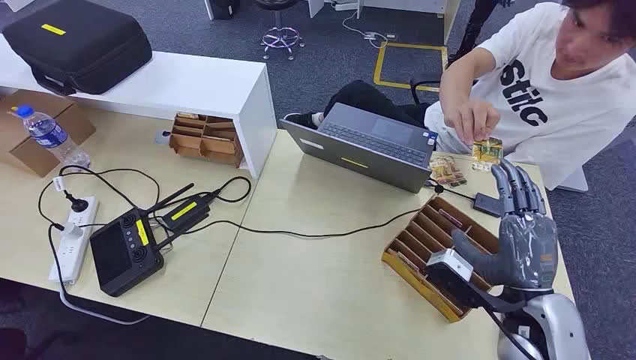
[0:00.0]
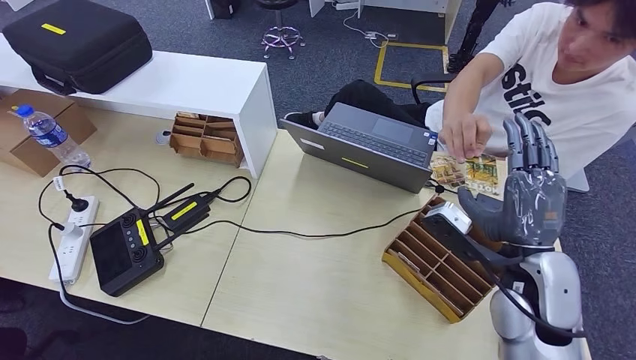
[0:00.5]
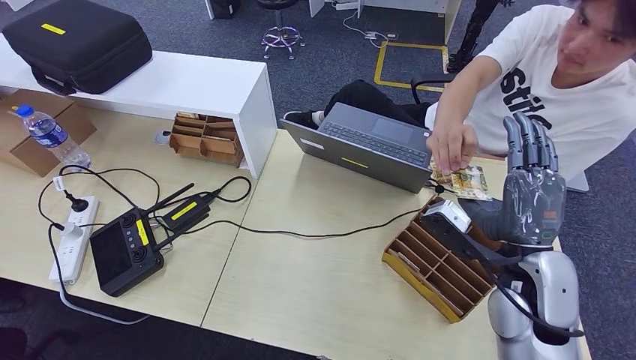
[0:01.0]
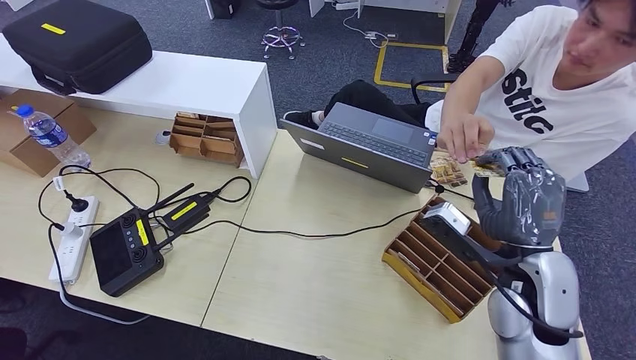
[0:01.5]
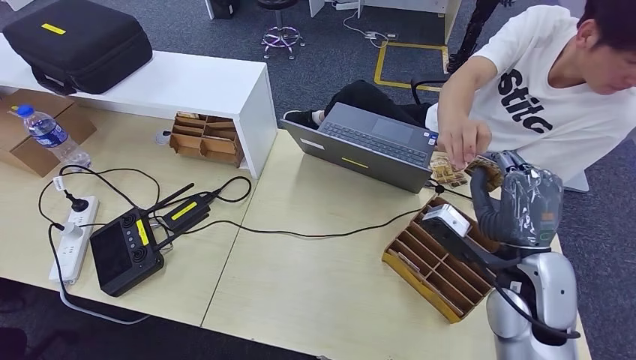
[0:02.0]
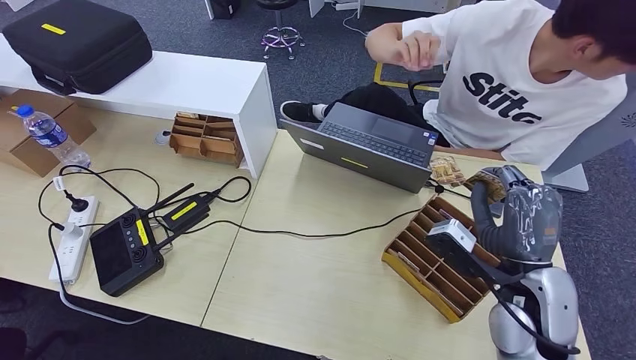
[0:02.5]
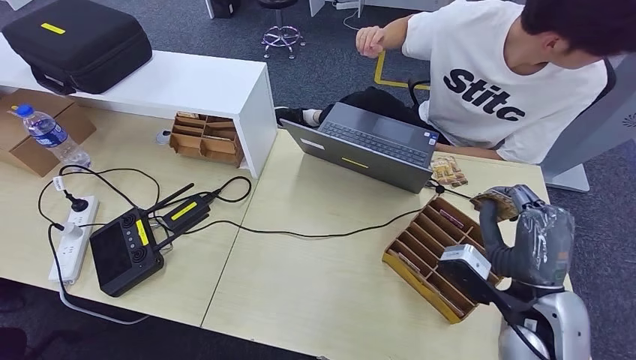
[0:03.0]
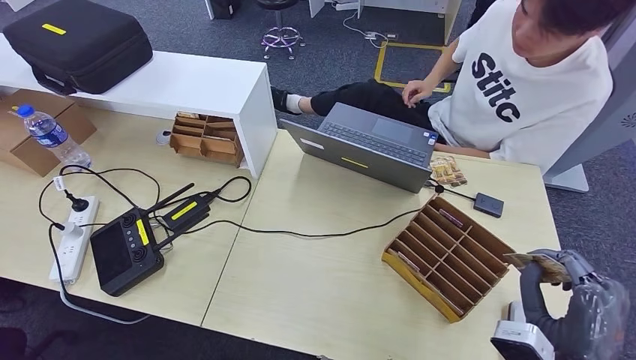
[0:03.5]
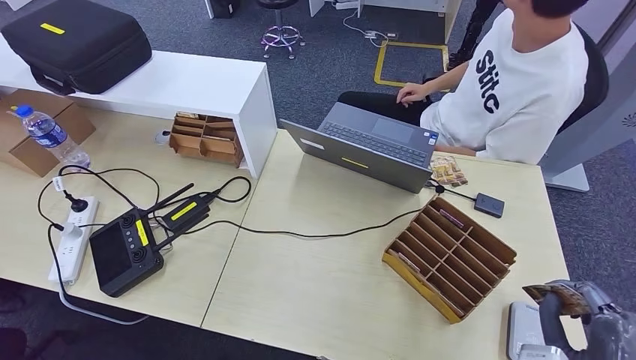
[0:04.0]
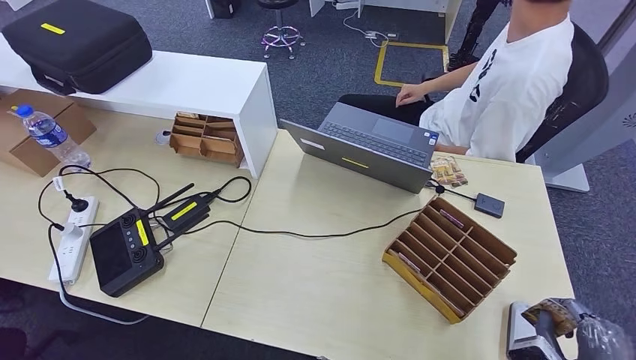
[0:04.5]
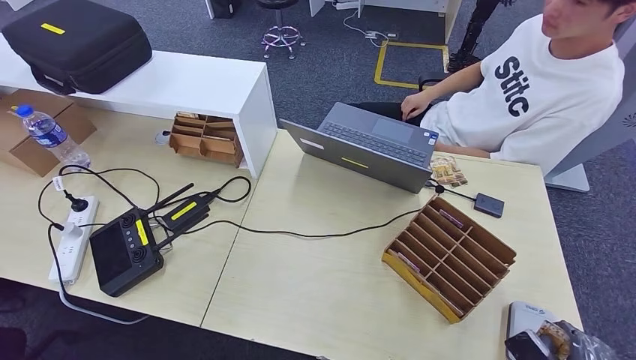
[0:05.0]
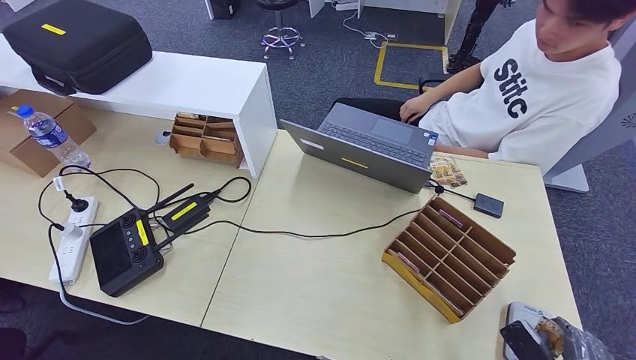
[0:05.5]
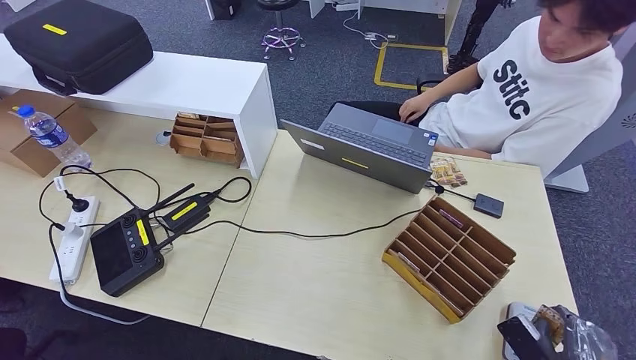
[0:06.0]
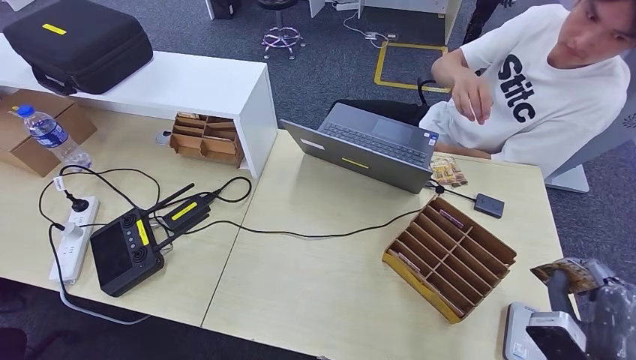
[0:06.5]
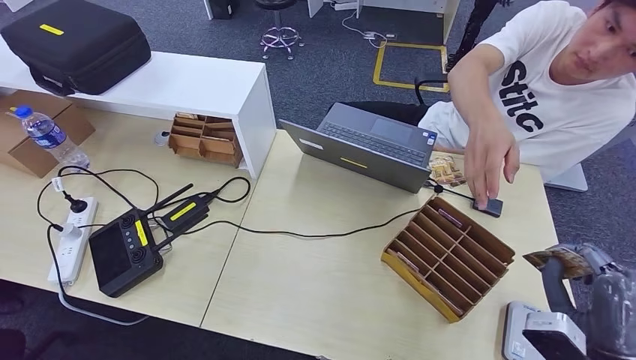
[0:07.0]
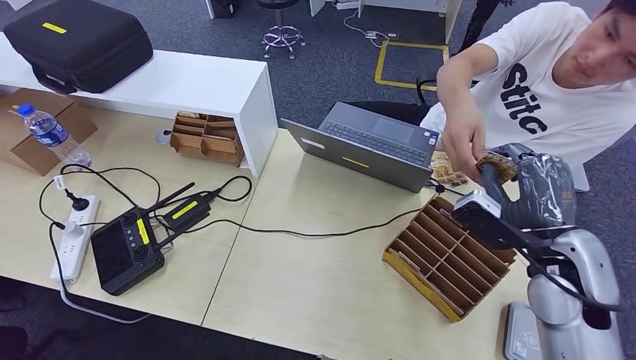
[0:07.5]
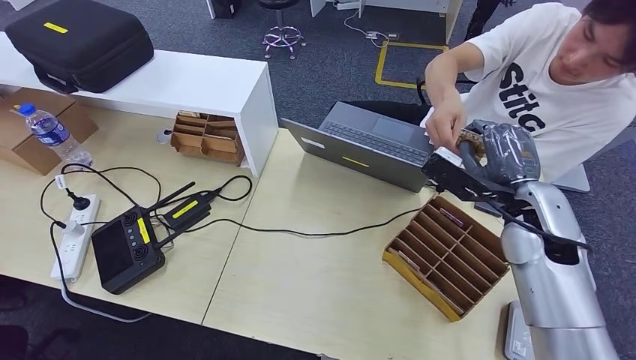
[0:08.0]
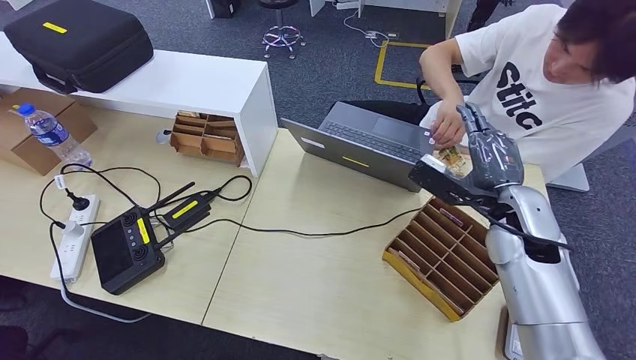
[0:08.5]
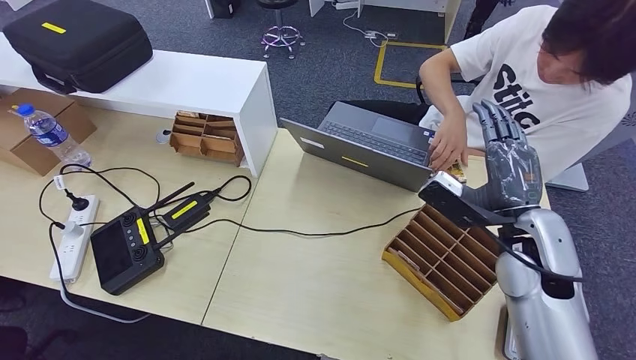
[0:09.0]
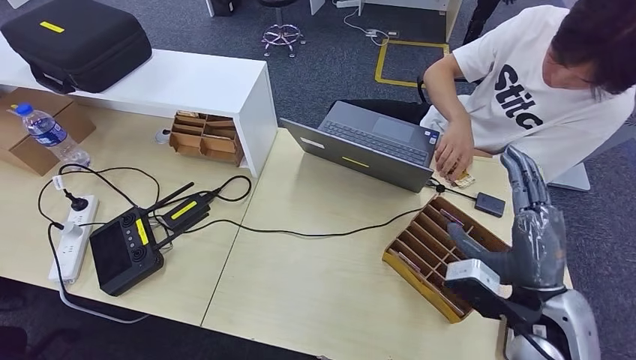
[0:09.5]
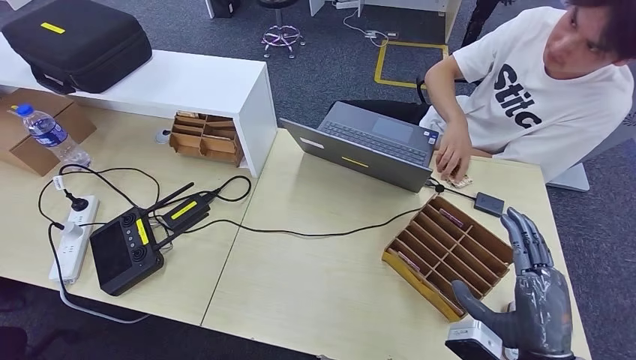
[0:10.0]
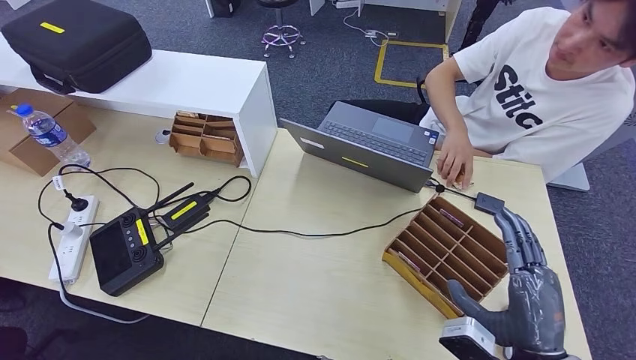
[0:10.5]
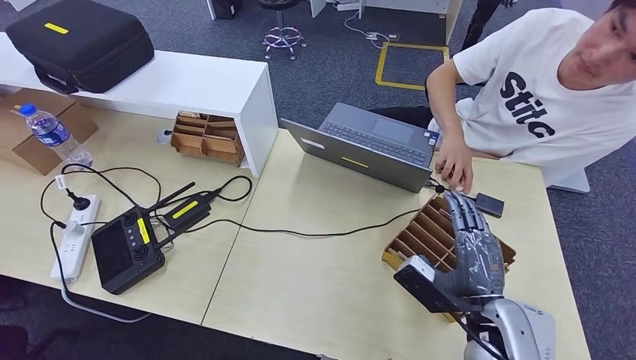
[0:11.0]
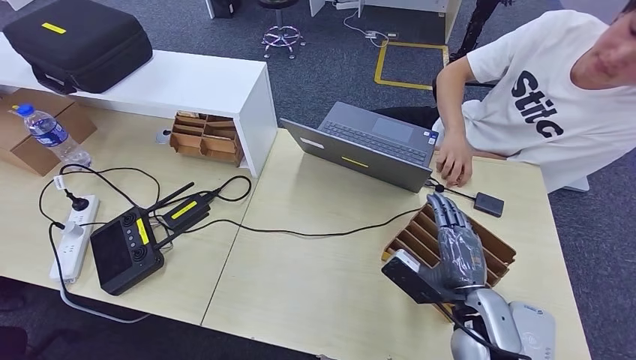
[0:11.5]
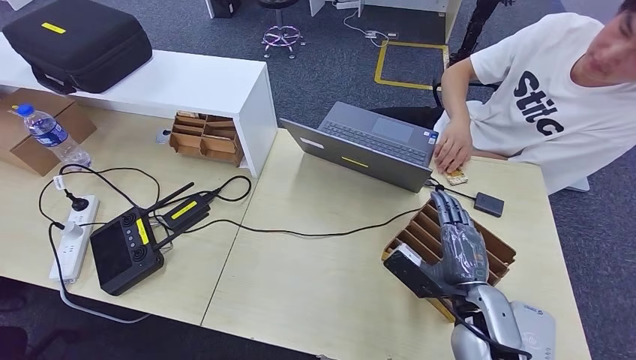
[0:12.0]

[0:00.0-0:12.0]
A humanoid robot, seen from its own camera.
Step, 0:00.0 to 0:02.0: Take the ID card from the person's hand.
Step, 0:02.5 to 0:05.5: Place the ID card on the card reader.
Step, 0:06.0 to 0:09.0: Hand the ID card to the person.
0:02.0 to 0:04.0: The right hand moves backward, to the right and downward, about 20 cm.
0:04.0 to 0:06.0: The right hand heads downward, covering some 10 cm.
0:08.0 to 0:10.0: The right hand is displaced backward by about 20 cm.
0:10.0 to 0:12.0: The right hand is displaced forward and to the left by roughly 10 cm.

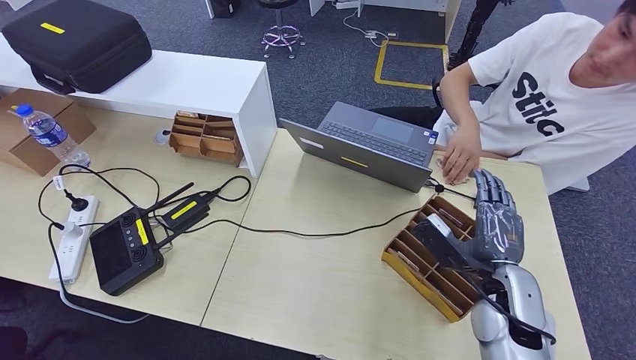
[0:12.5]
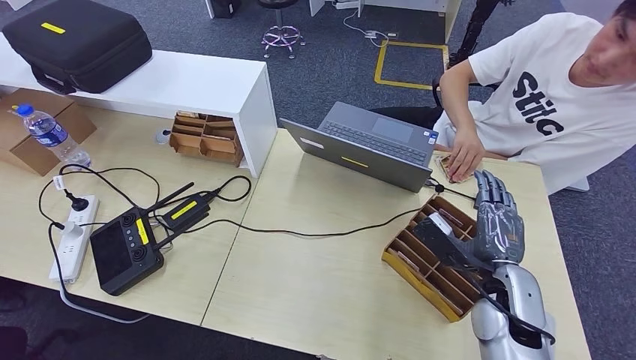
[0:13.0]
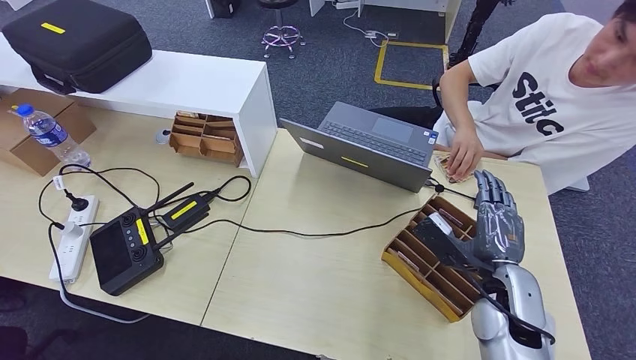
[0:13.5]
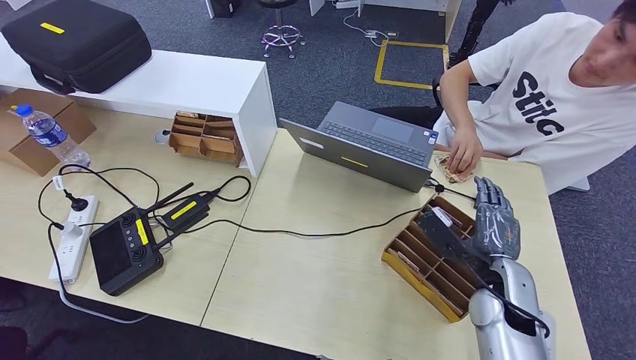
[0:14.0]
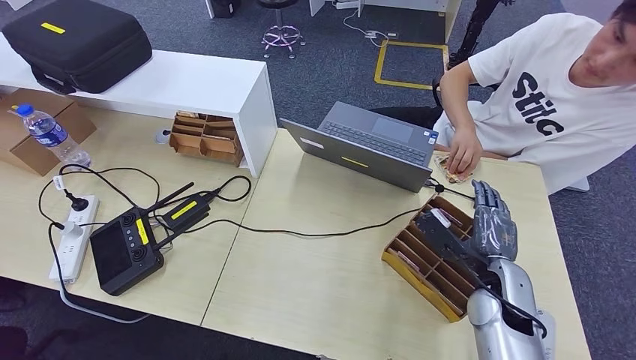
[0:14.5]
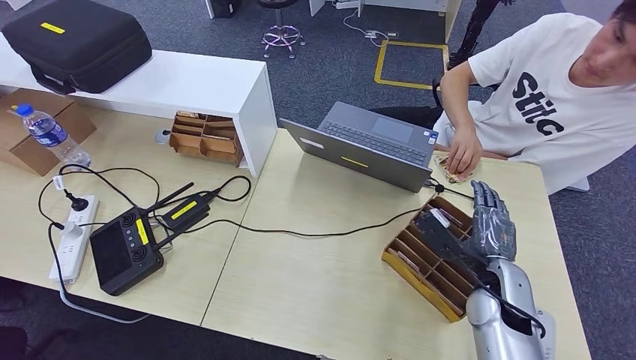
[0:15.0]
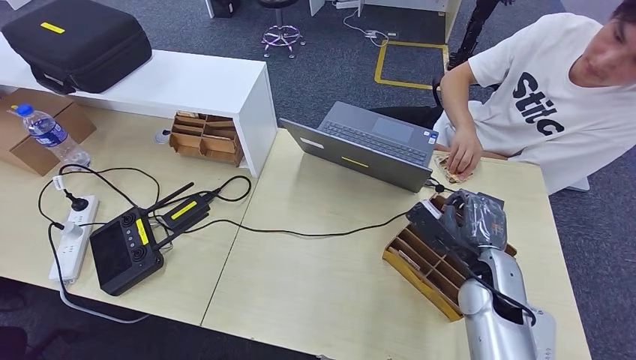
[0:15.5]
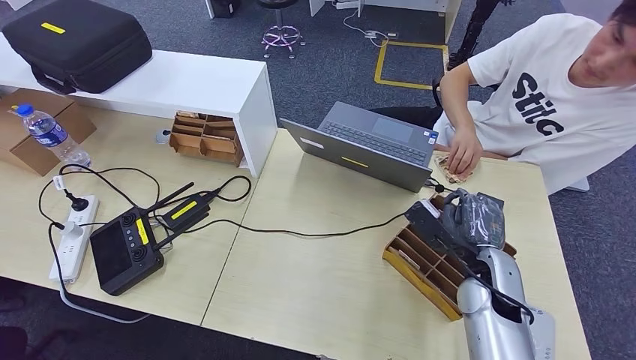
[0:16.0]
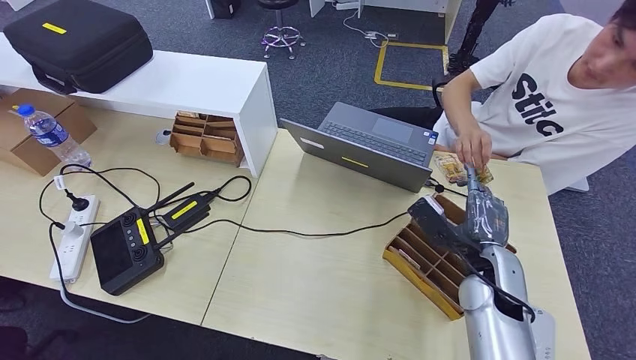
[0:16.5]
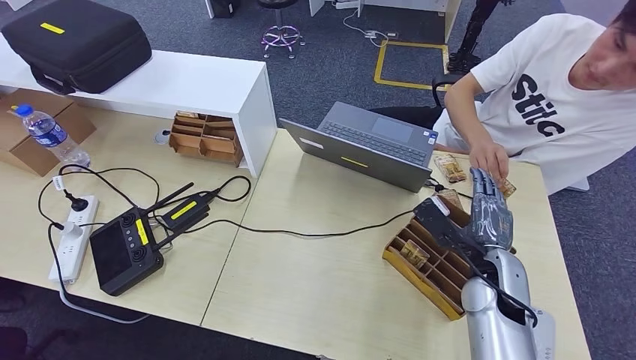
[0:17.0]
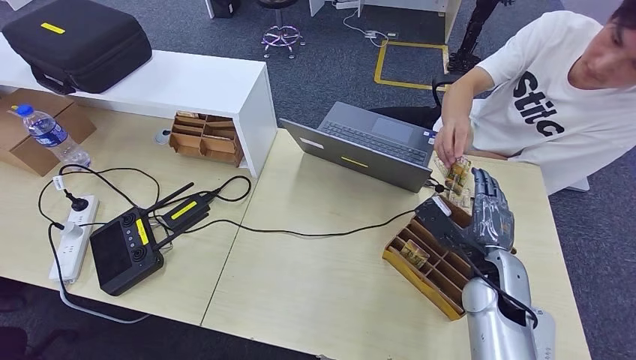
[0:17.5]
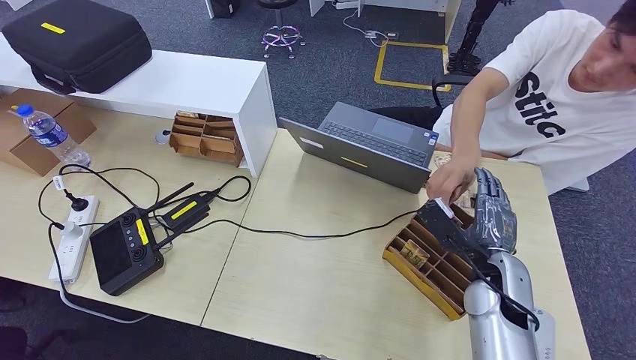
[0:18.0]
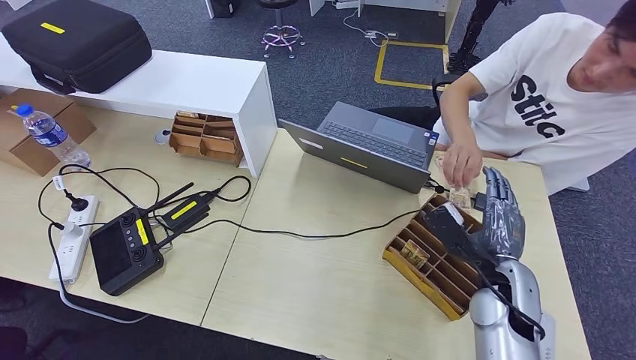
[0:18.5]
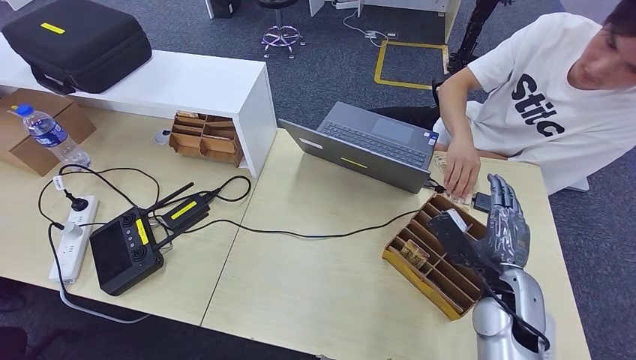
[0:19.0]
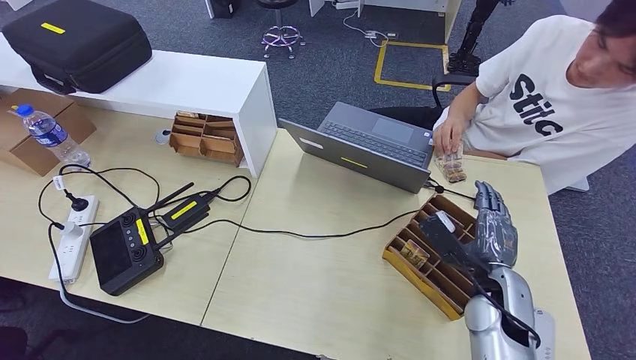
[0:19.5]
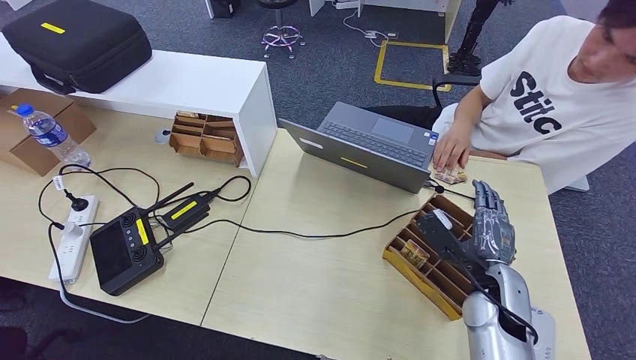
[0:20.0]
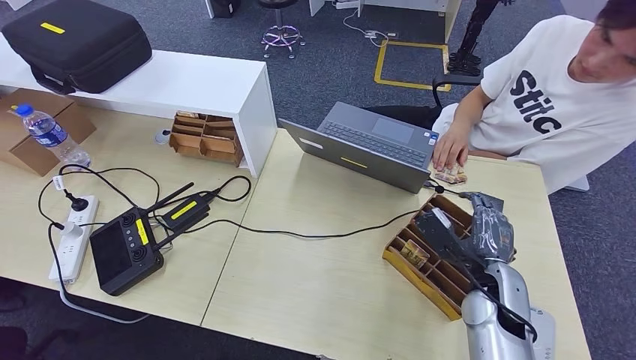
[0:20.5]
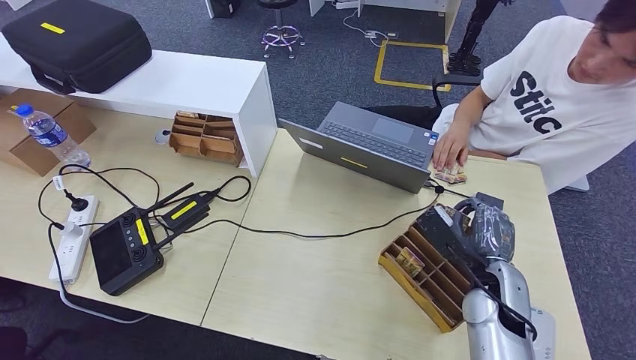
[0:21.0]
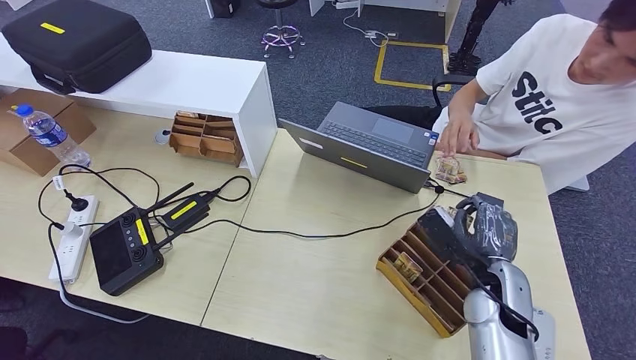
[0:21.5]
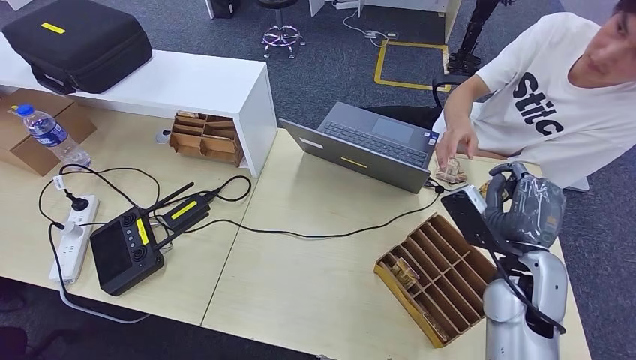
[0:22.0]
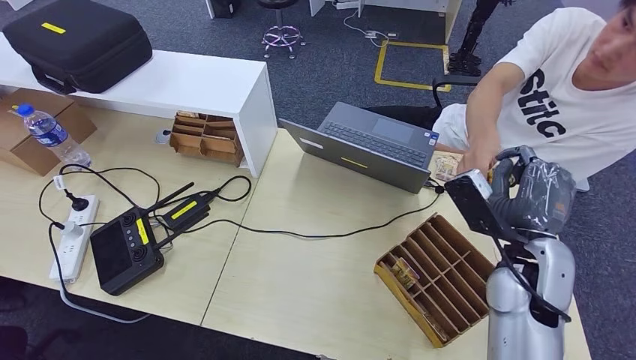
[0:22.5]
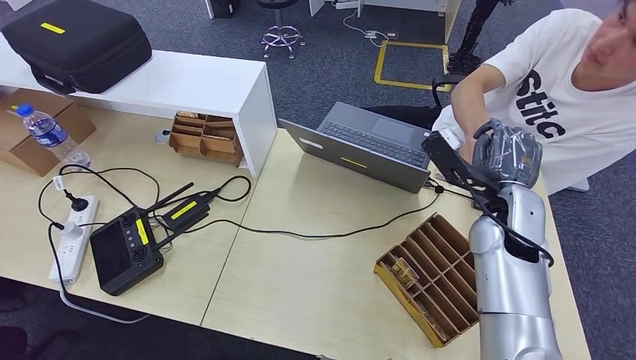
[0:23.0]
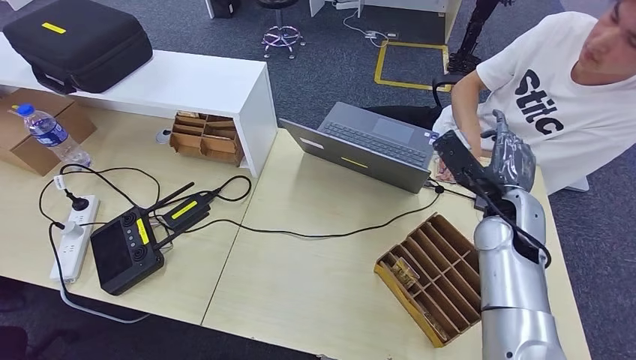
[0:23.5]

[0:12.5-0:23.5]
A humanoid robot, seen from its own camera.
Step, 0:12.5 to 0:23.0: Pick up the room key from the key card box.
0:12.5 to 0:20.0: The hands stay close to where they were, moving slightly.
0:20.0 to 0:21.5: Both hands stay put.
0:21.5 to 0:23.5: The right hand goes roughly 10 cm upward and forward.
